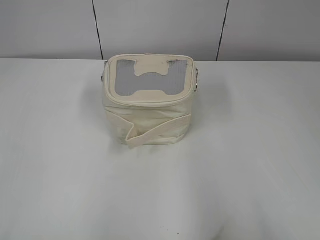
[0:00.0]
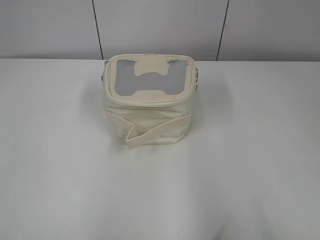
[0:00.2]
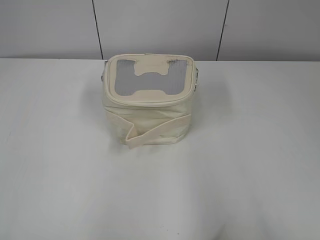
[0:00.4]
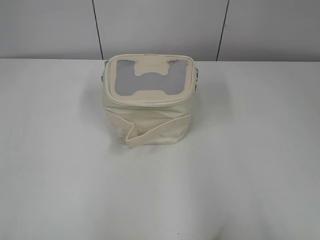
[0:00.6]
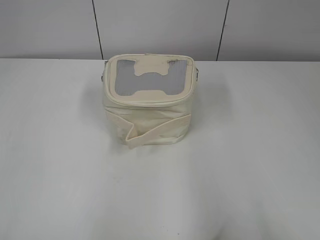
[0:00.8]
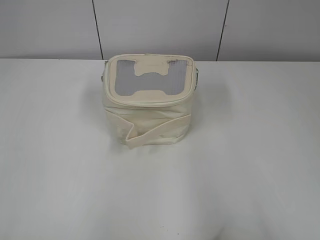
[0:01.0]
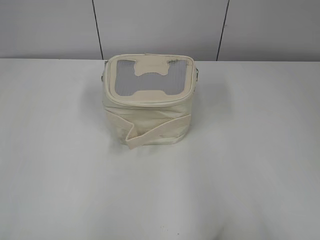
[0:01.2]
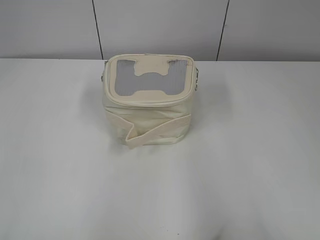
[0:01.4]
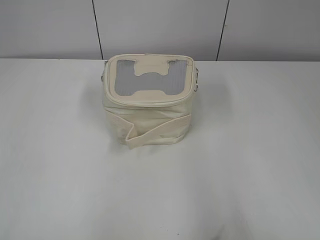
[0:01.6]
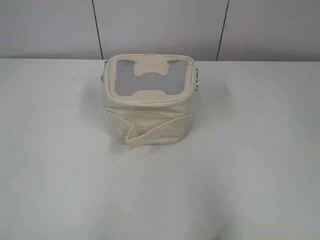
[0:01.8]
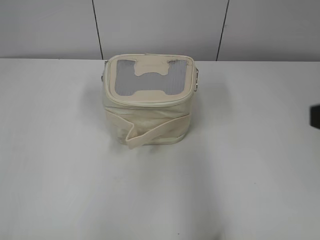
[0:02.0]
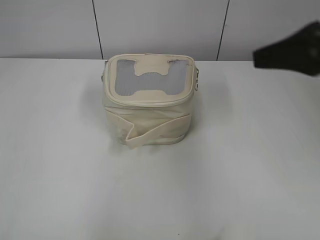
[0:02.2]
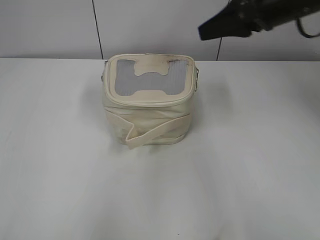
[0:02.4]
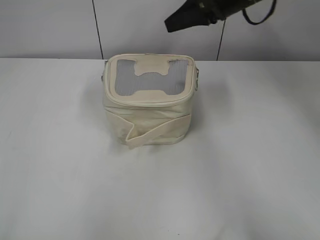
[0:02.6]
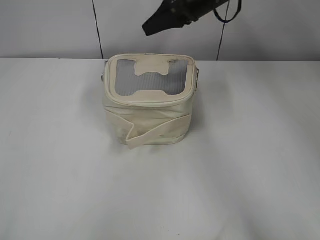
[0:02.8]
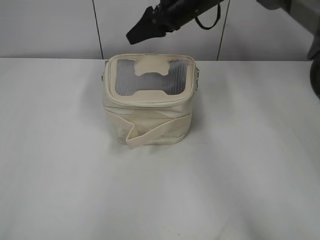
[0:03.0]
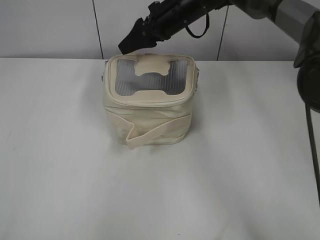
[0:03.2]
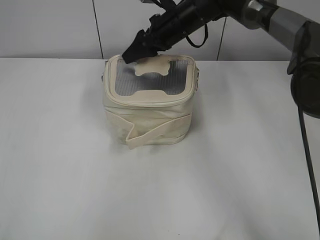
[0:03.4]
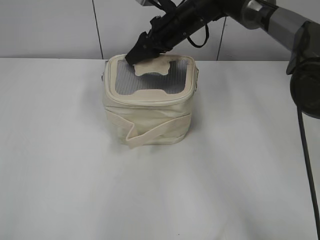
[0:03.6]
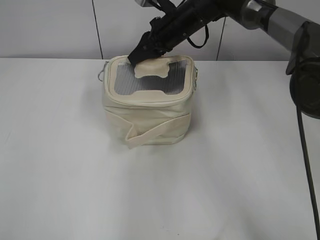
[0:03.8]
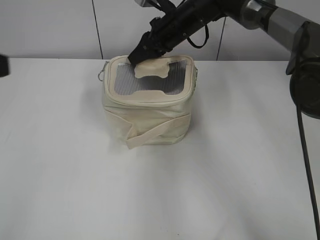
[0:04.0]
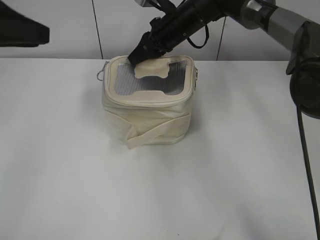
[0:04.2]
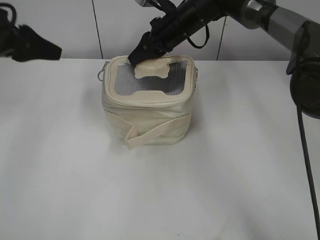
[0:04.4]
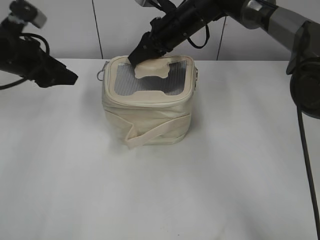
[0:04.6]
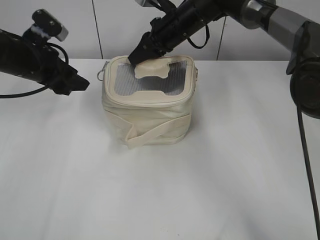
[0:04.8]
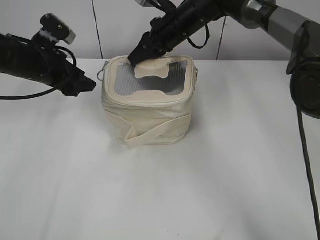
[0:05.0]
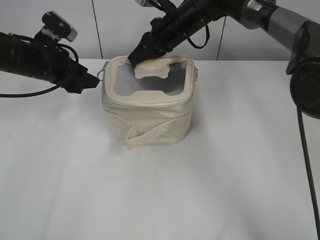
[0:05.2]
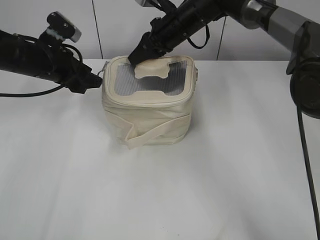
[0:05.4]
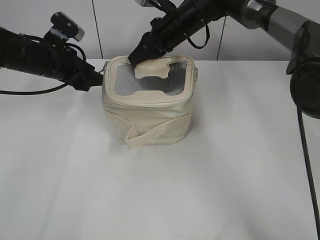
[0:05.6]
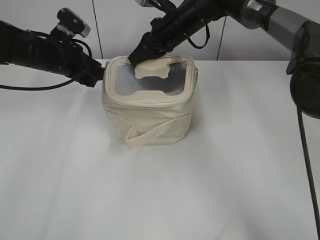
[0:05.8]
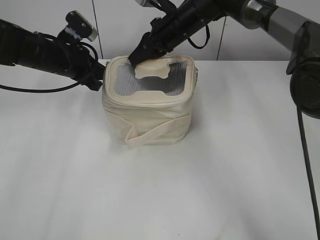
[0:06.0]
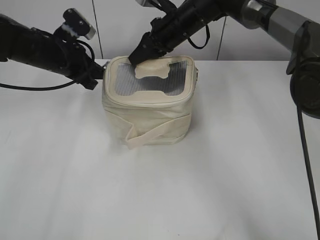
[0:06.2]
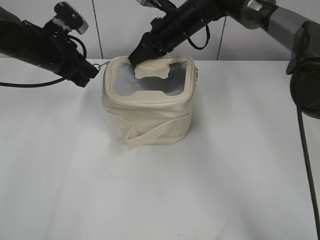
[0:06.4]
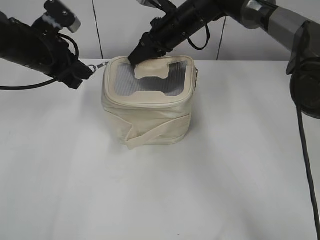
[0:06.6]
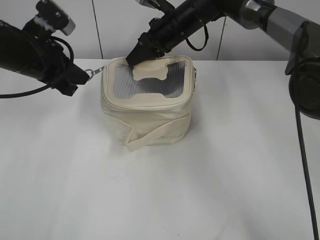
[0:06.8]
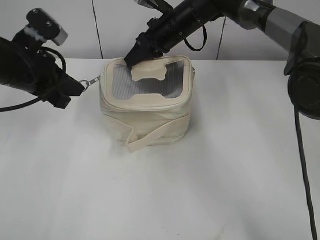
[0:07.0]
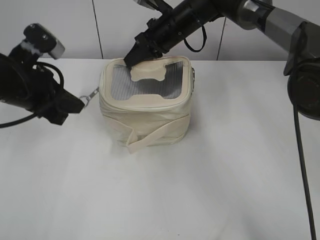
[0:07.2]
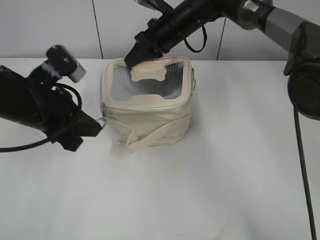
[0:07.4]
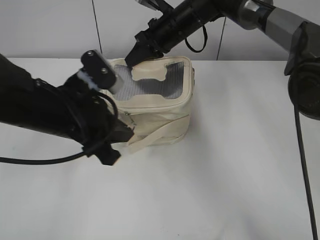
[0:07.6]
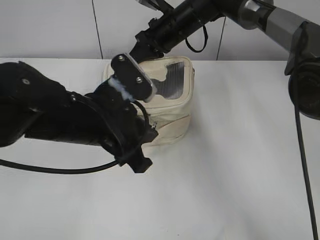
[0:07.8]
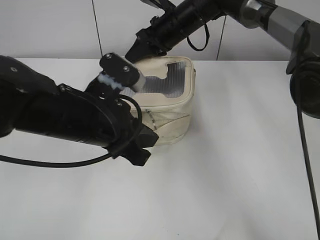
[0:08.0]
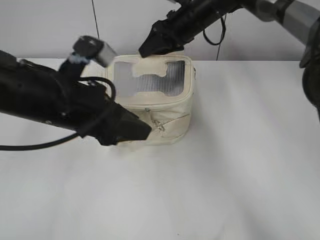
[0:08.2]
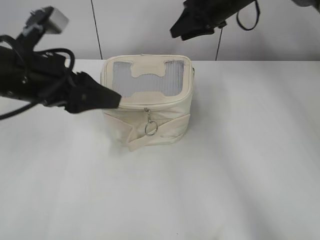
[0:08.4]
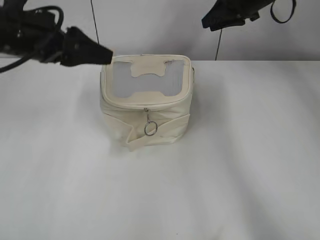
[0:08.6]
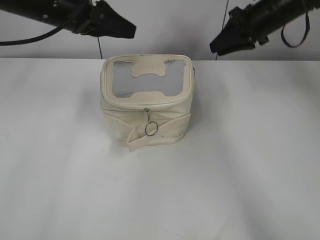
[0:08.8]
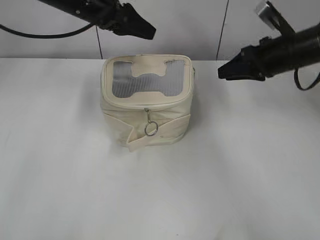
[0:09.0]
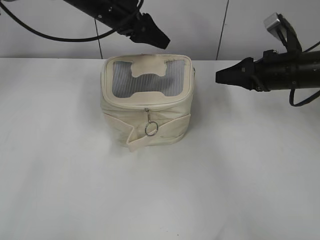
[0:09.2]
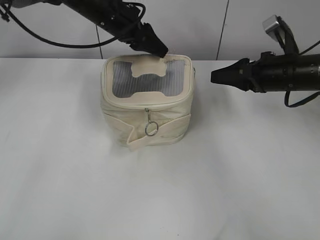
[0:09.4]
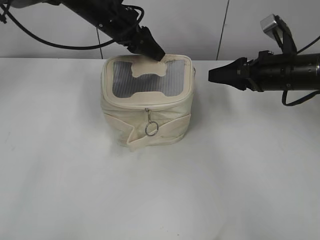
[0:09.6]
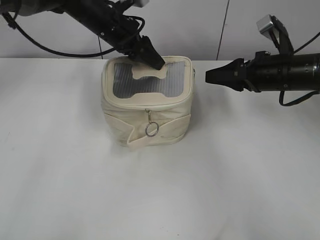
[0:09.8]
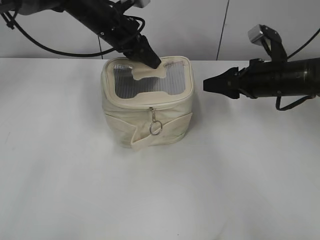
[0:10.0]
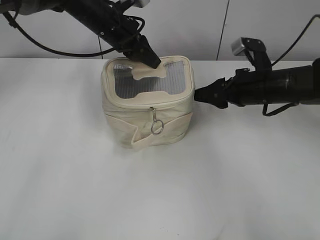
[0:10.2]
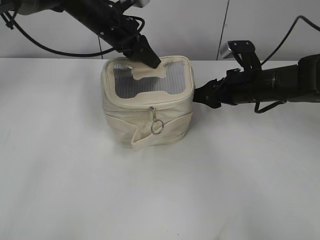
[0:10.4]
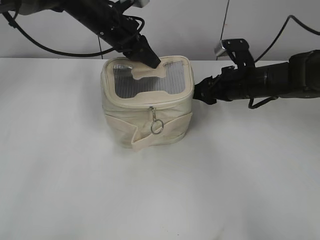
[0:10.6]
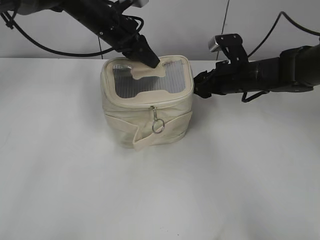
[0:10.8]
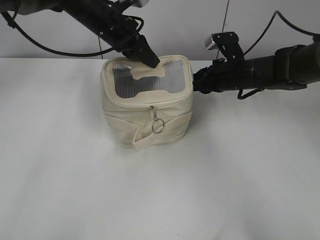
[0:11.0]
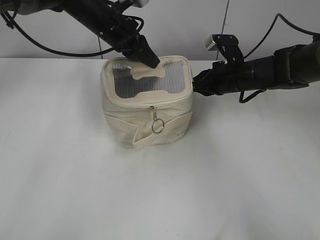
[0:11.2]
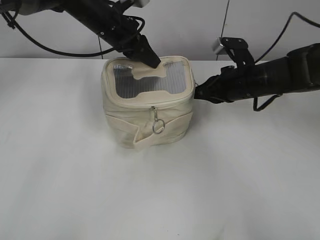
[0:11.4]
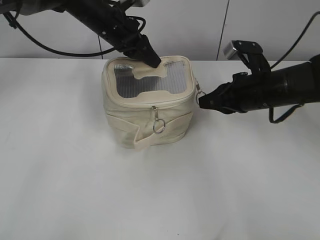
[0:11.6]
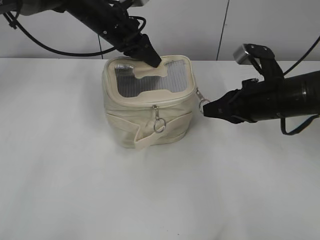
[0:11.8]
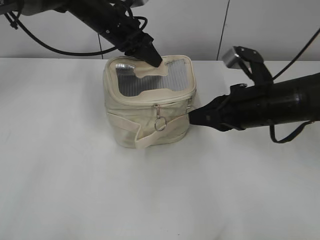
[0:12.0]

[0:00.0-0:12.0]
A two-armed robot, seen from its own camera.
Step, 0:00.0 to 0:07.8: Zip up the bag with your left hand.
0:01.6 to 0:03.0: The right gripper travels forward and to the left by some 50 cm.
0:03.0 to 0:04.4: The right gripper shifts by about 5 cm, and closes; the left gripper travels forward by roughly 35 cm, and opens.
0:04.4 to 0:06.0: The left gripper shifts some 15 cm downward, to the right and forward, and closes its fingers.
0:06.0 to 0:07.6: The left gripper shifts roughly 15 cm backward.
0:07.6 to 0:09.0: The left gripper travels forward and upward by about 20 cm, and opens up; the right gripper shifts some 20 cm to the right.
0:09.0 to 0:10.4: Both grippers travel together downward, about 5 cm. The left gripper closes.
0:10.4 to 0:12.0: The right gripper travels backward by approximately 10 cm, and closes up.

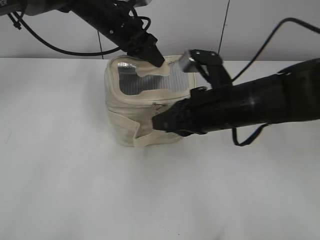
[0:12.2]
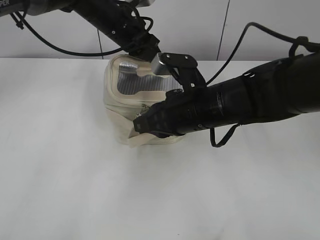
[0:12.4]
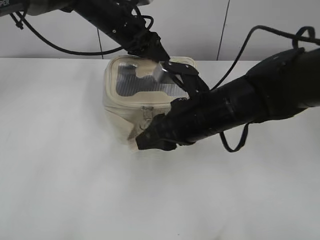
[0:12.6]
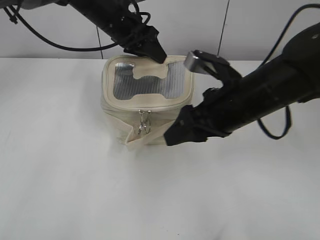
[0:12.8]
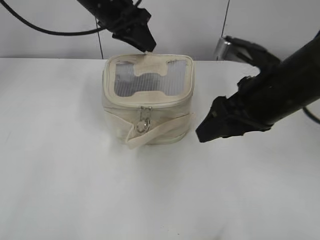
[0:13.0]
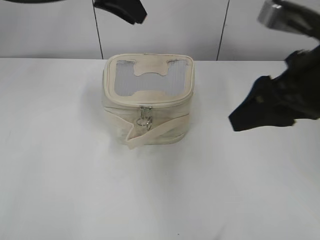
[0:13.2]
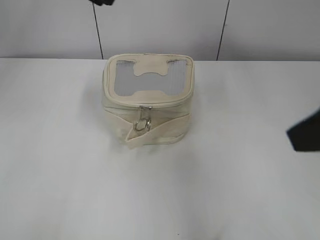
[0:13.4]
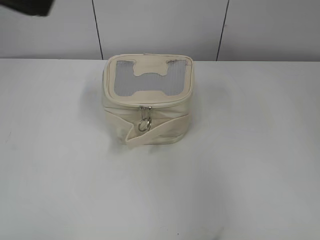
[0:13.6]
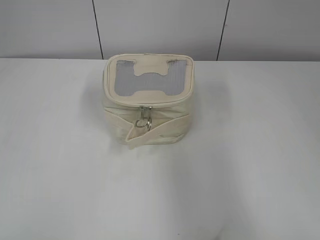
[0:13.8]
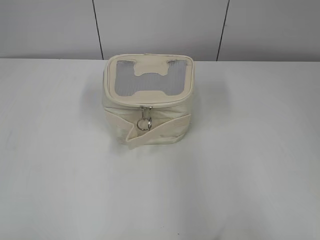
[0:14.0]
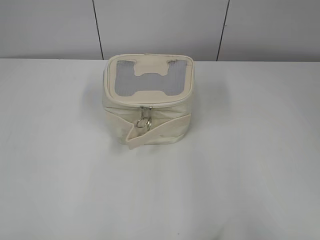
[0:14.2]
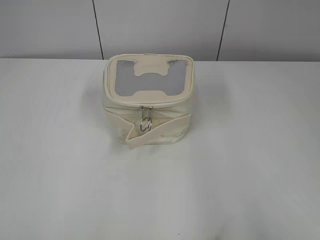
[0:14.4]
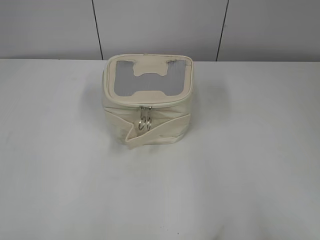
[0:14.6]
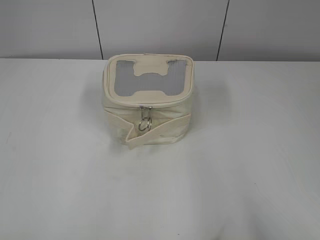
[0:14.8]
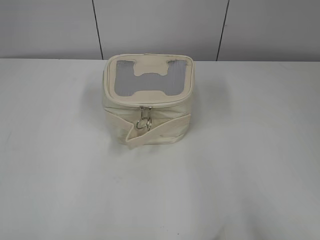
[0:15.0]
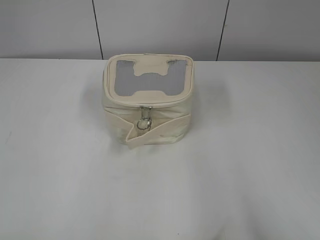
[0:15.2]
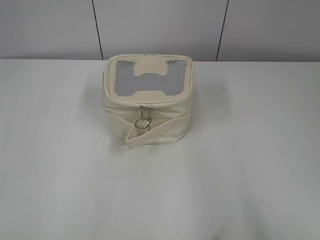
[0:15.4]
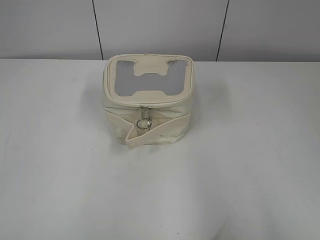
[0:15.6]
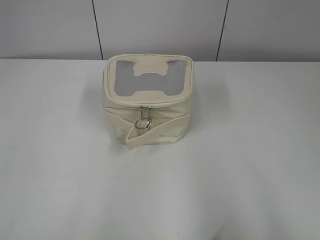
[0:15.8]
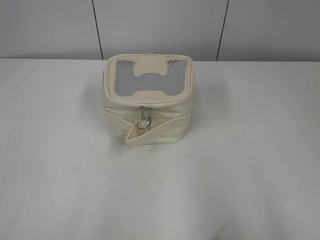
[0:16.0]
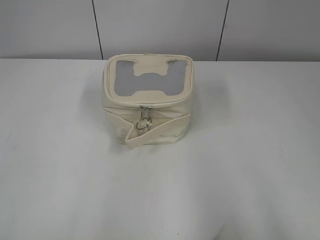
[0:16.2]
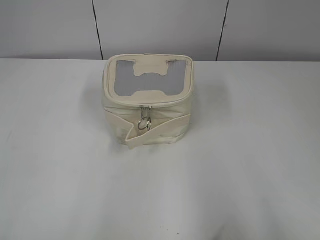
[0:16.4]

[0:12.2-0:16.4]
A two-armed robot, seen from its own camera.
Step, 0:12.6 to 0:12.8: Hold the bag with your left hand.
0:12.2 to 0:13.6: The left gripper moves backward and upward, approximately 35 cm. The right gripper moves backward, upward and to the right, some 30 cm, and opens.
0:13.6 to 0:15.0: The right gripper moves backward and to the right, about 10 cm. The left gripper moves backward, to the left and downward, some 25 cm, and opens.

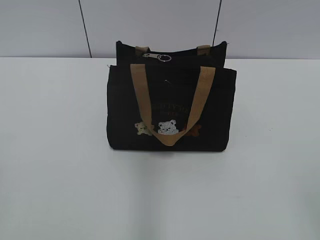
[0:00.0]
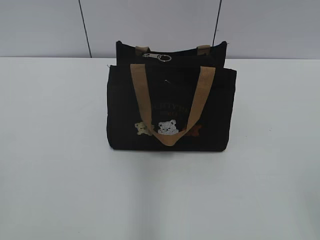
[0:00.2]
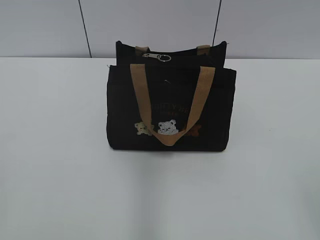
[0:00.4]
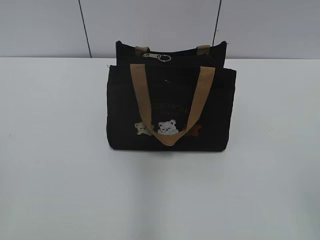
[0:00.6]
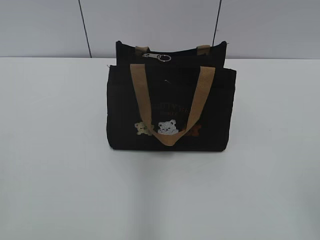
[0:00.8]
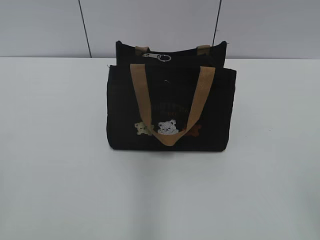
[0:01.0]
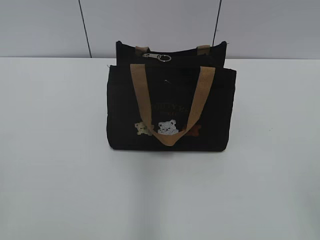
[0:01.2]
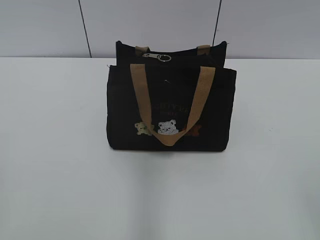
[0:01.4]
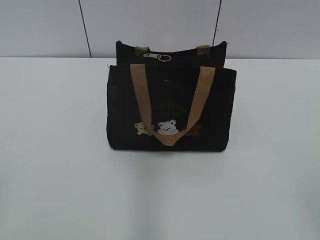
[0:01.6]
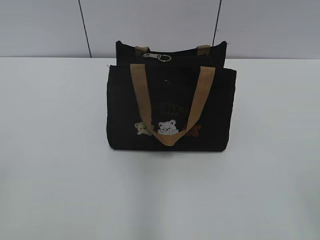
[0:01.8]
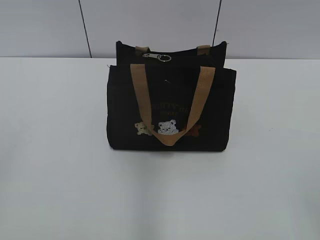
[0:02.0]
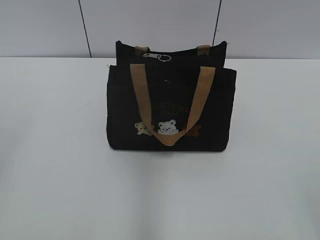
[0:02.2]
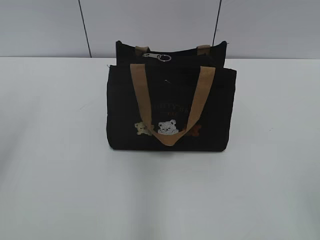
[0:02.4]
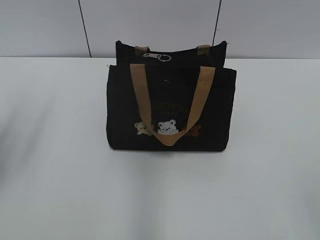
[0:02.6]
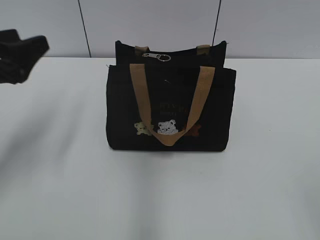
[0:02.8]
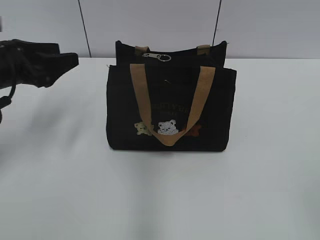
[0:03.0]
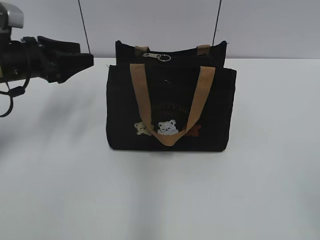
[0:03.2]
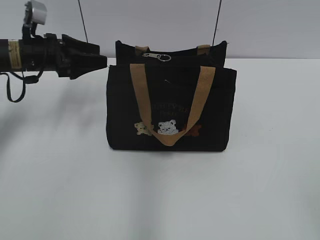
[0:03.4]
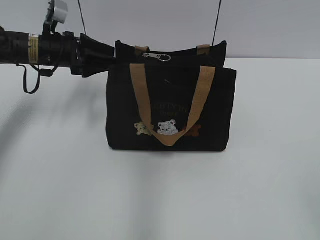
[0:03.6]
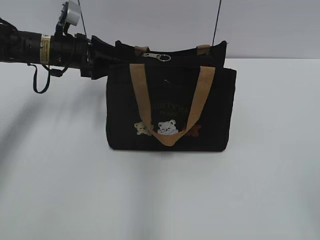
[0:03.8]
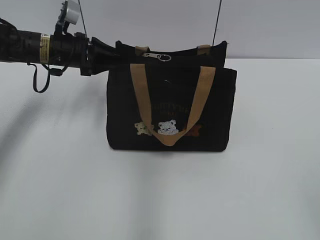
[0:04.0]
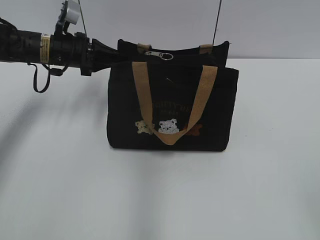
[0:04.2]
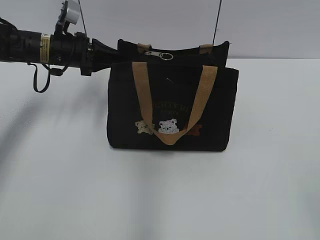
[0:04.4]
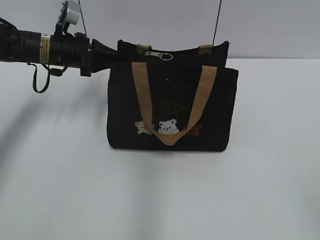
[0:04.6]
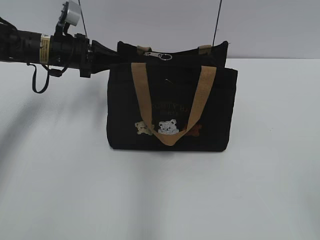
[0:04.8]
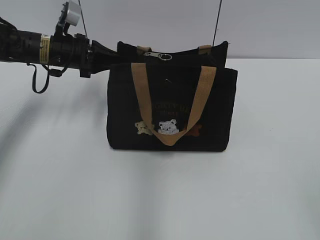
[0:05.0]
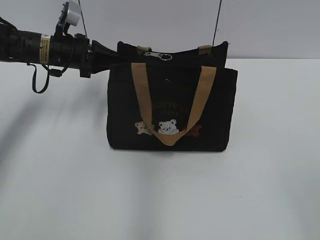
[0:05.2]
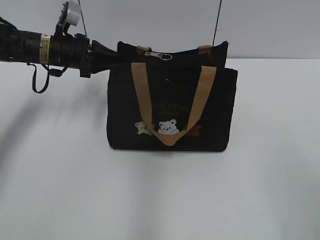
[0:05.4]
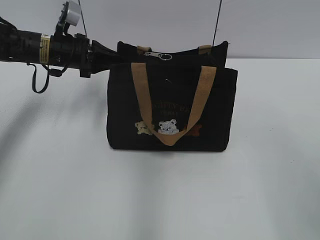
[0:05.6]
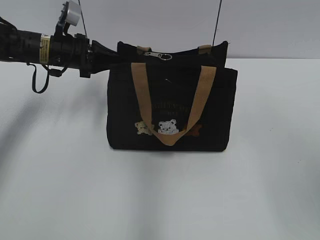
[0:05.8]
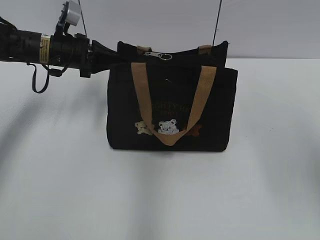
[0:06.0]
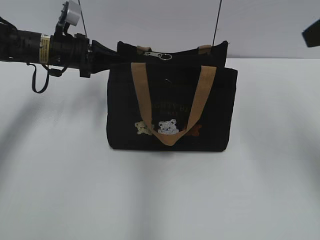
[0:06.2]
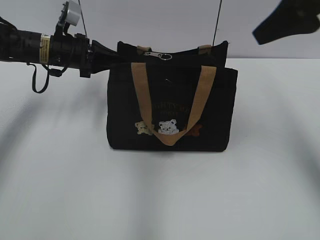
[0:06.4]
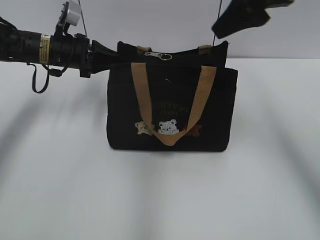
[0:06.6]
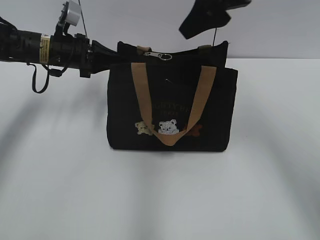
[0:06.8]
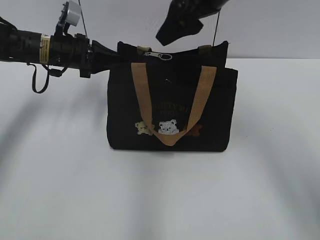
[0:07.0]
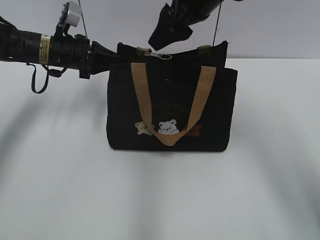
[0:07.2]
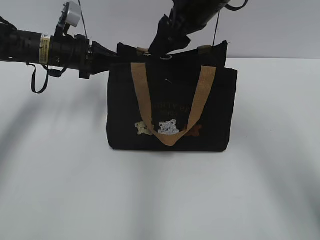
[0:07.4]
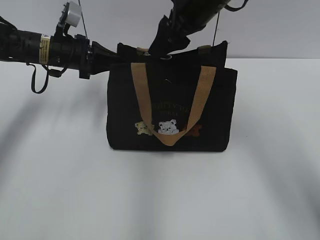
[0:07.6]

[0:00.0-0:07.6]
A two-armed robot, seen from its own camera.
0:01.6 to 0:03.0: The left gripper heads forward, covering roughly 30 cm.
0:03.0 to 0:04.6: The left gripper heads forward and to the right, covering roughly 15 cm, and closes its fingers.
0:04.6 to 0:06.0: The right gripper goes approximately 20 cm forward and upward.
0:06.0 to 0:07.6: The right gripper shifts approximately 30 cm forward and to the left.
